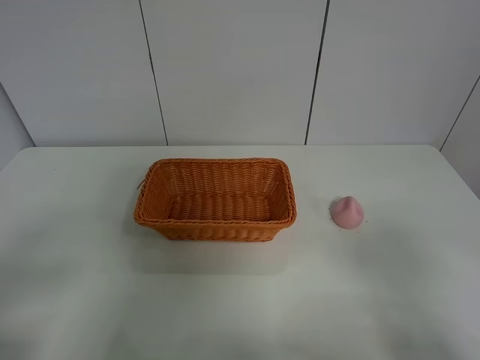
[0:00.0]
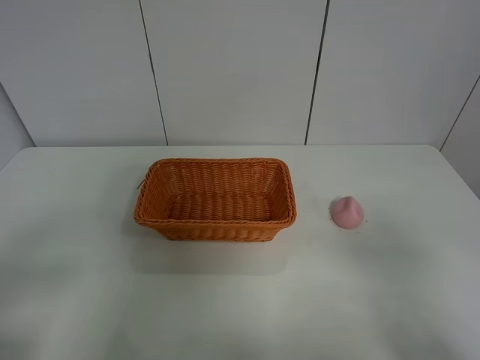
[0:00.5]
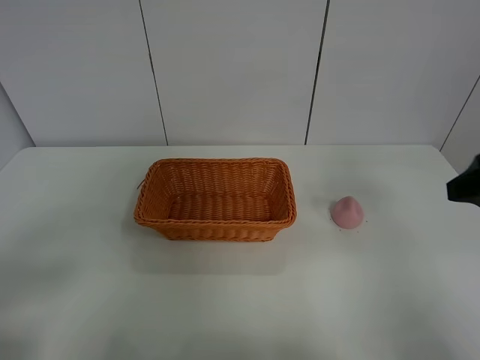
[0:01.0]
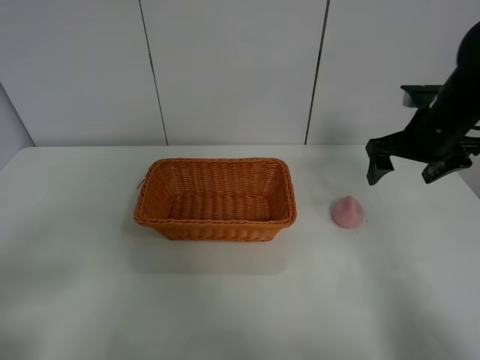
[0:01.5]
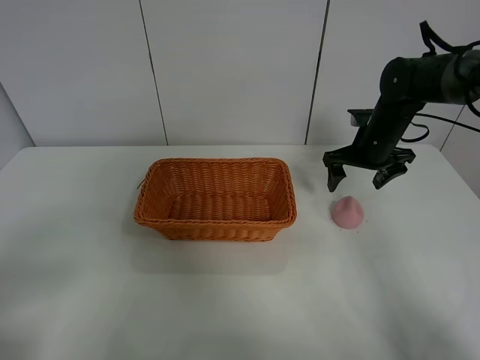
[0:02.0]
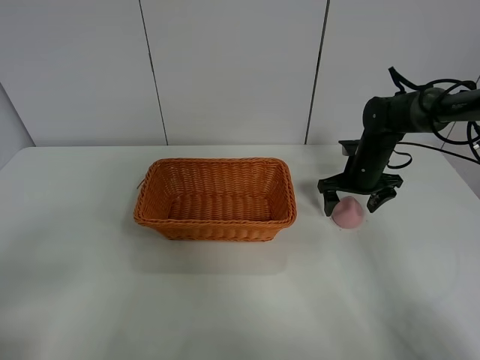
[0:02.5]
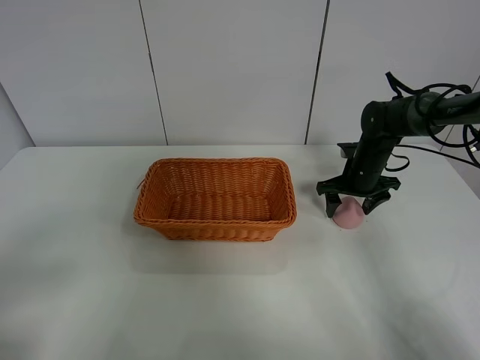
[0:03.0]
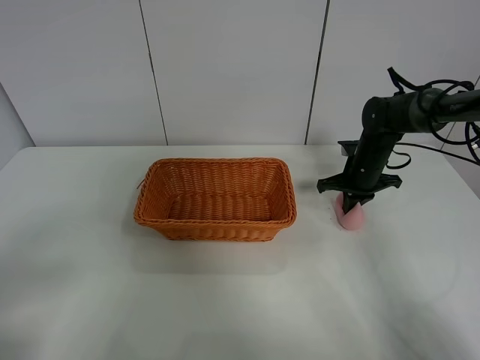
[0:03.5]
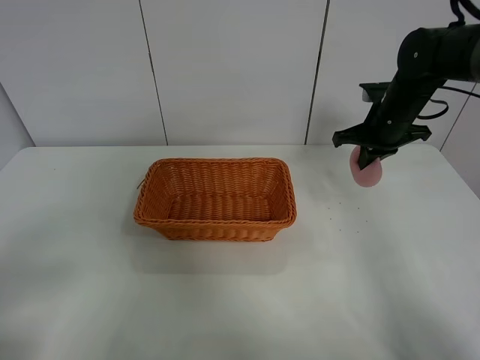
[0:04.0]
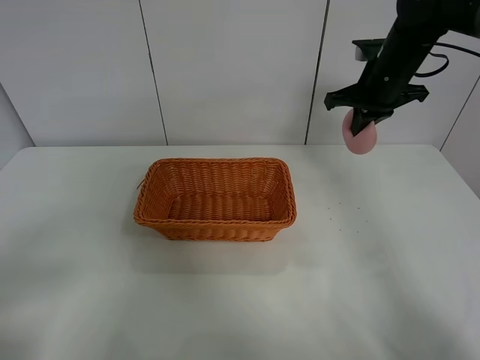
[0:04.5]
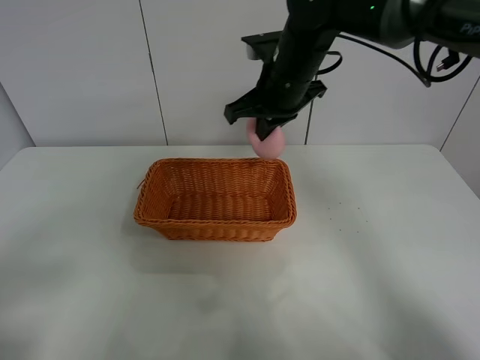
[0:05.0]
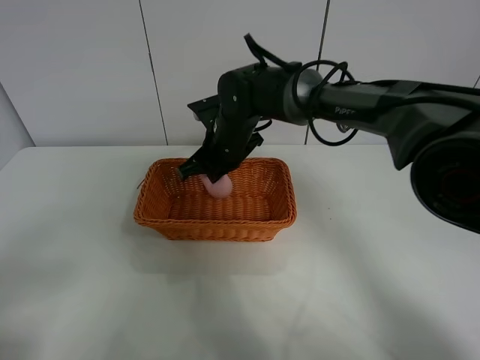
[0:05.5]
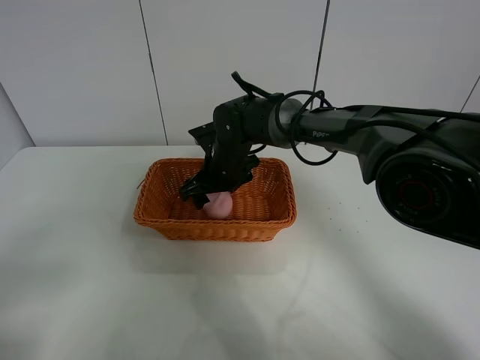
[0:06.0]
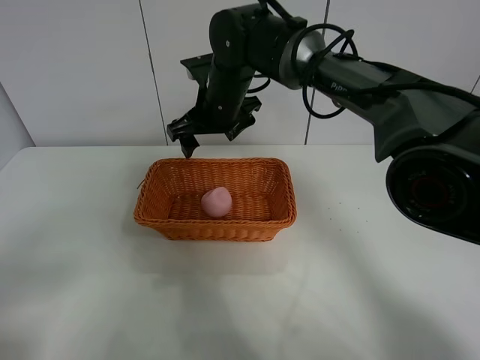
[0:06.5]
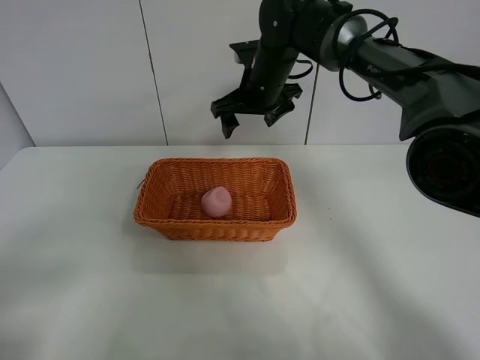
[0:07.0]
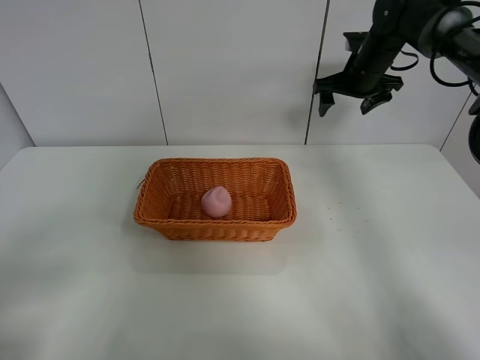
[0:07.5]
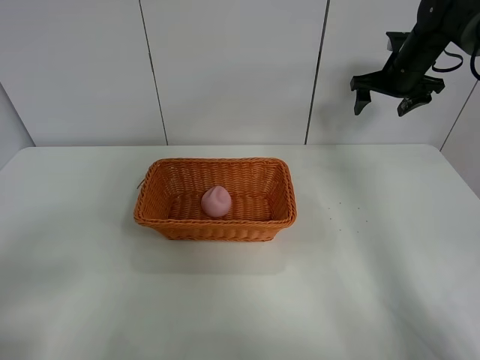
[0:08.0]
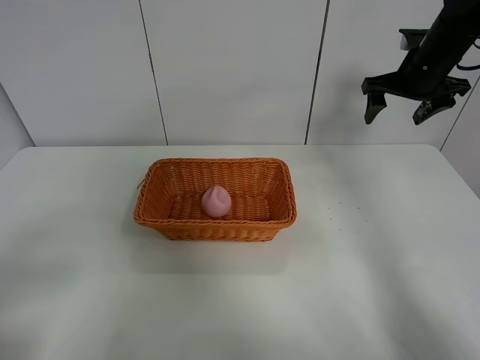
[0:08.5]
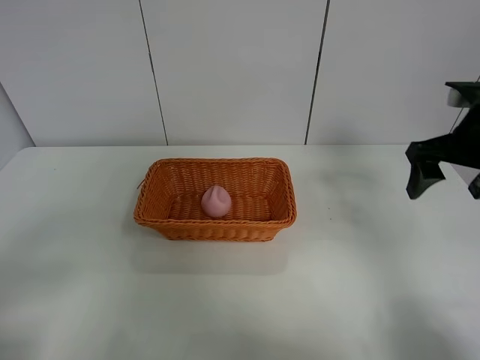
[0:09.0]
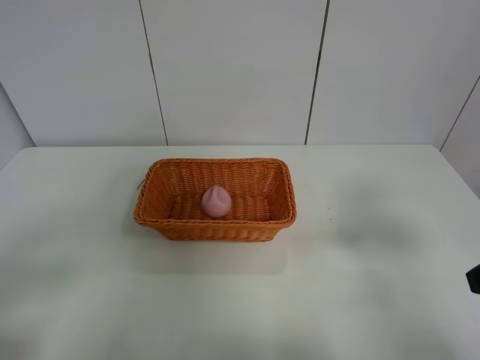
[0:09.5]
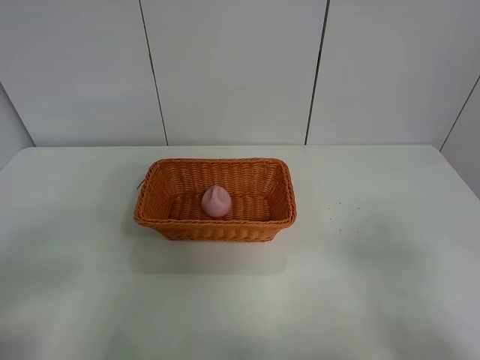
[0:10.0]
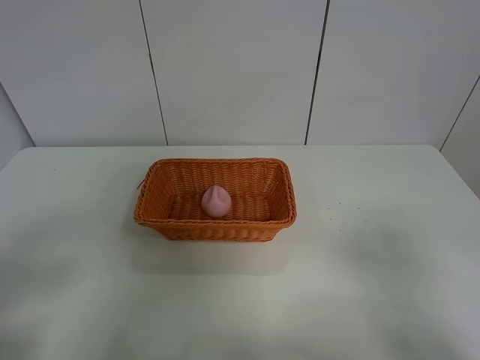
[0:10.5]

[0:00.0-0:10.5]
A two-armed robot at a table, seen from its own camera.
Step, 0:00.0 to 0:03.0: Grasp the peach with right gripper.
Step, 0:03.5 to 0:06.5: Place the peach in the basket with right gripper.
0:00.0 to 0:02.0: The right gripper moves forward, approximately 40 cm.
0:02.0 to 0:04.0: The right gripper goes approximately 5 cm upward, and closes.
0:04.0 to 0:06.5: The right gripper shifts roughly 25 cm to the left, and opens up.
0:06.5 to 0:08.5: The right gripper shifts about 30 cm to the right.
0:08.5 to 0:10.5: The right gripper is displaced backward by about 40 cm.

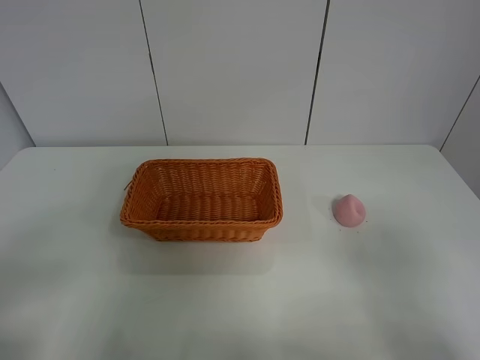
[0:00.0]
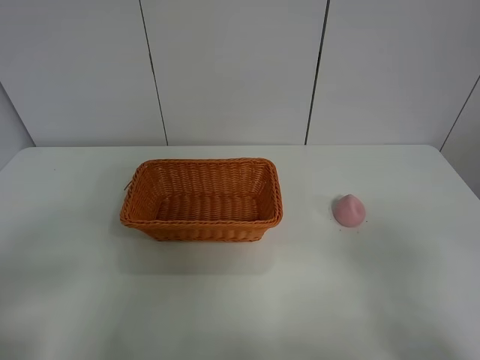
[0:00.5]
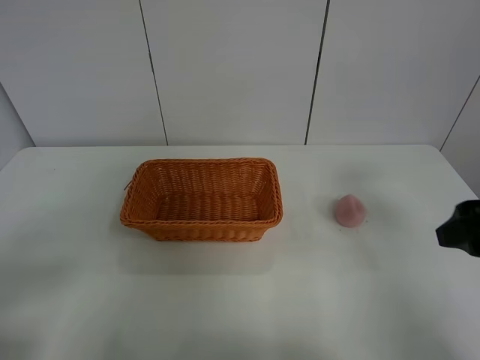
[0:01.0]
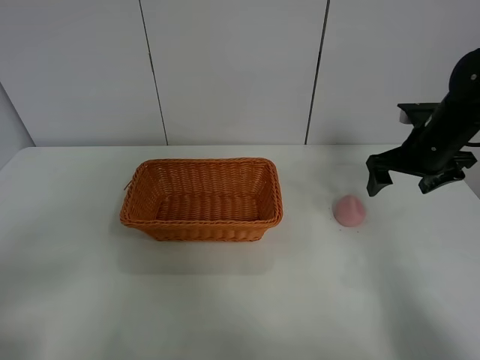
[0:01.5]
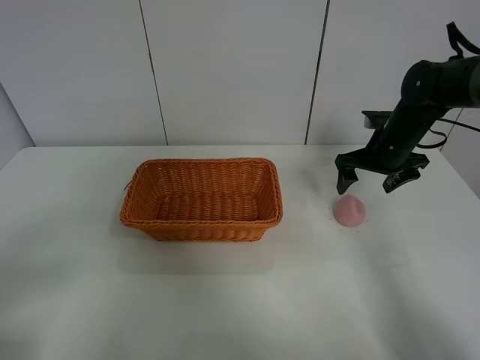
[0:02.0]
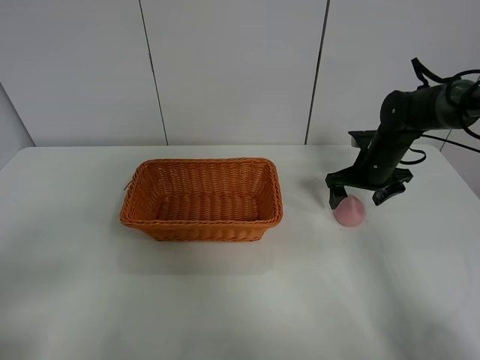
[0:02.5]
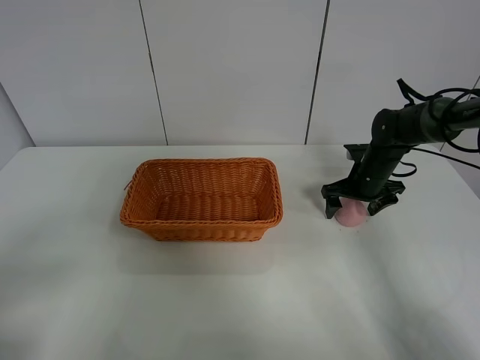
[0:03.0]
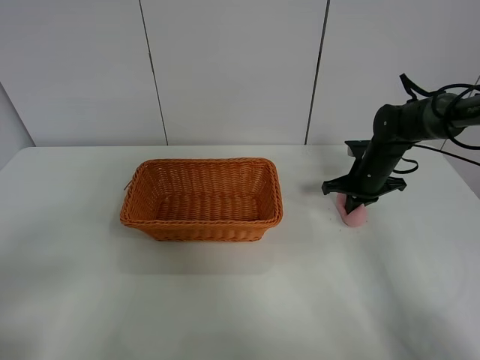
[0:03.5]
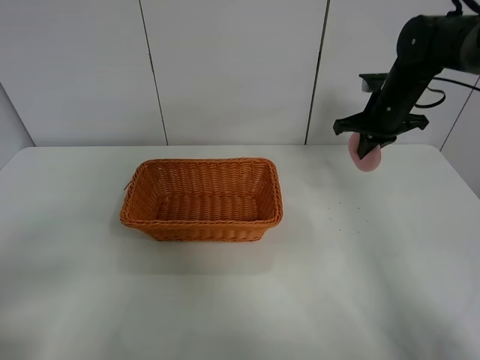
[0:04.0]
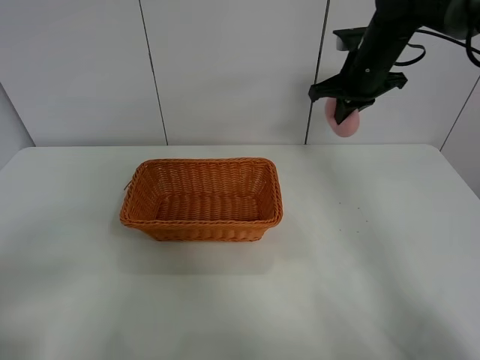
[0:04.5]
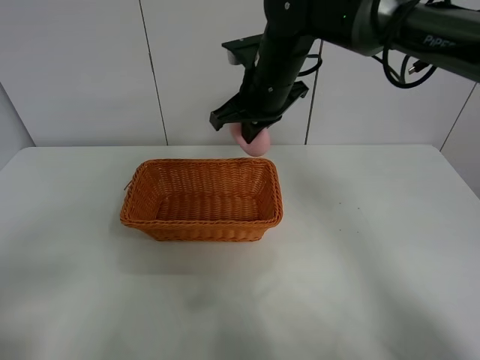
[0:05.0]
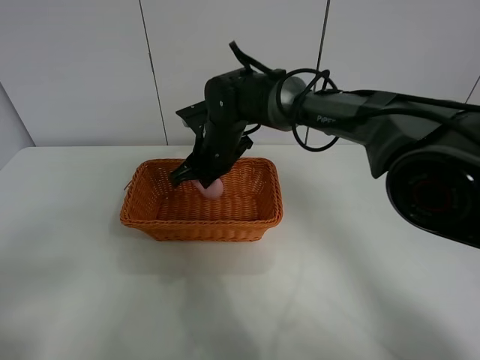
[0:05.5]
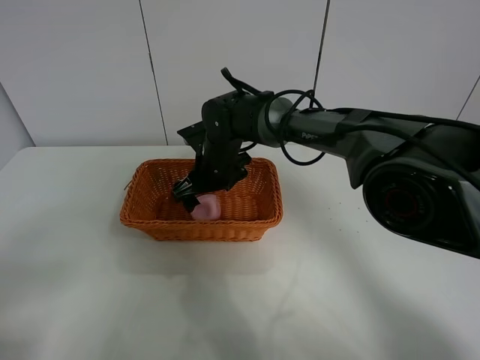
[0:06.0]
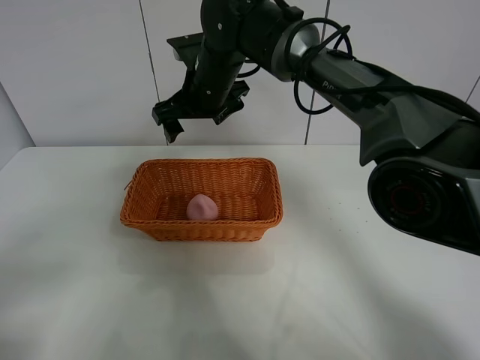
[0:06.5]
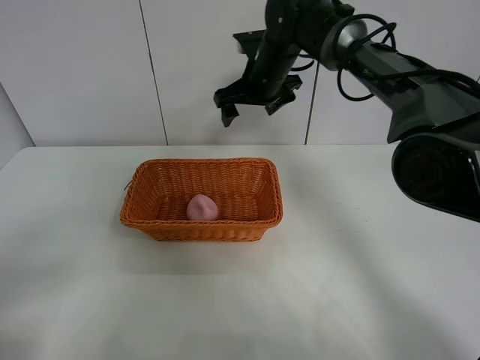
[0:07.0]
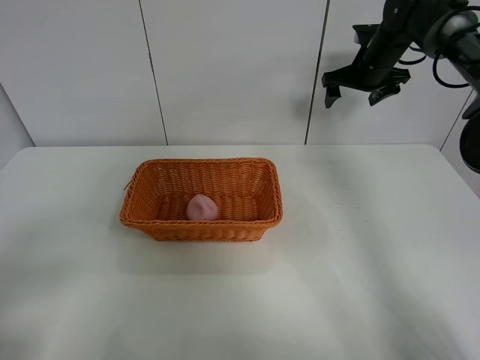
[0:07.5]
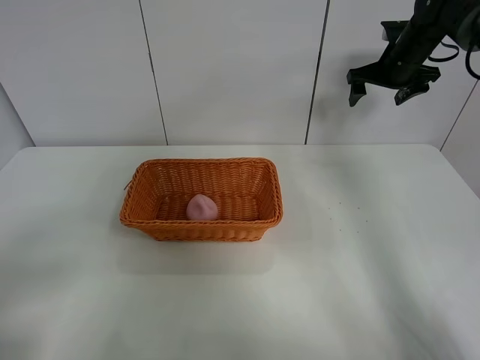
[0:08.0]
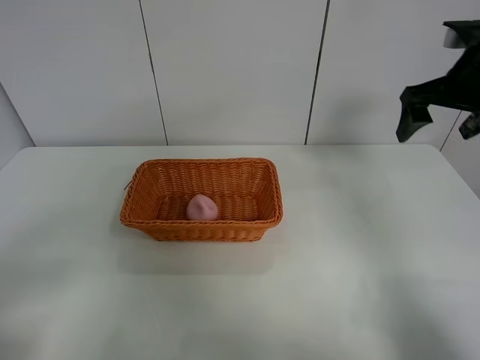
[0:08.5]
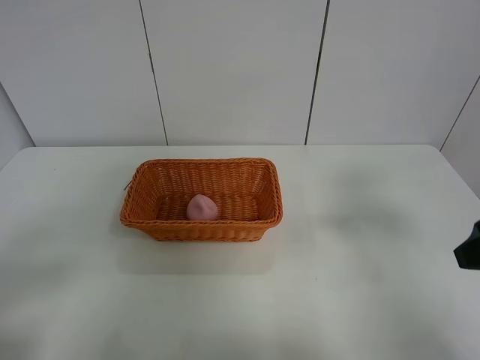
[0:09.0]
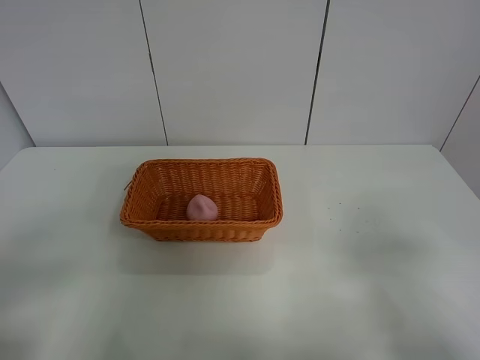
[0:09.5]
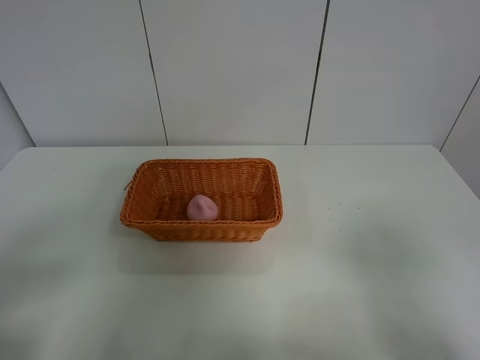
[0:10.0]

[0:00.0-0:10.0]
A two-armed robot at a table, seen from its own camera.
Step, 0:00.0 to 0:03.5: Grasp the peach with right gripper.
Step, 0:04.0 to 0:06.0: Place the peach in the basket with right gripper.
0:00.0 to 0:02.0: The right gripper moves forward, about 40 cm.
0:02.0 to 0:04.0: The right gripper moves upward, roughly 5 cm, and closes its fingers.
0:04.0 to 0:06.0: The right gripper shifts about 30 cm to the left, and opens its fingers.
0:06.0 to 0:08.0: The right gripper heads to the right and upward, covering roughly 35 cm.
0:08.0 to 0:10.0: The right gripper travels backward by approximately 50 cm.

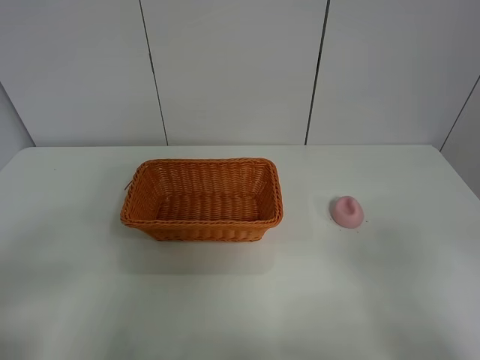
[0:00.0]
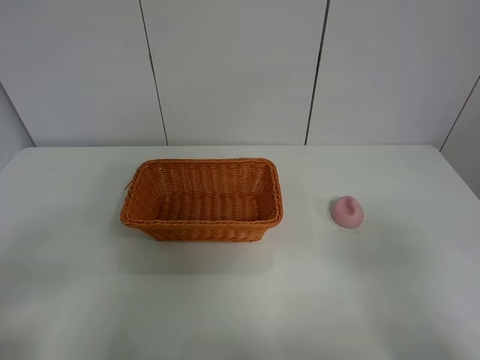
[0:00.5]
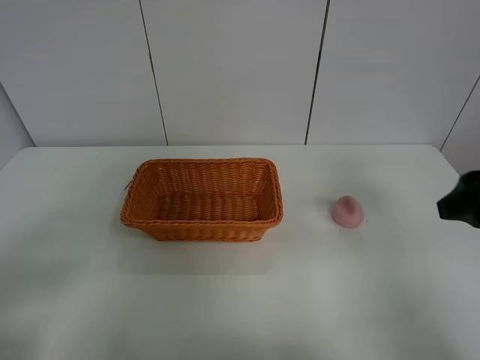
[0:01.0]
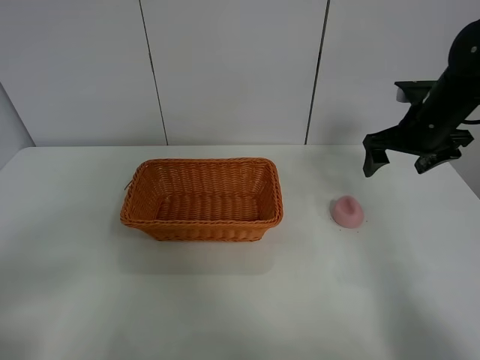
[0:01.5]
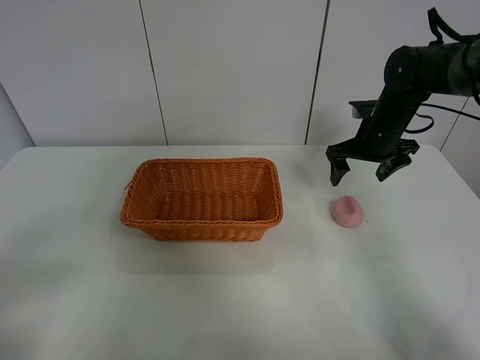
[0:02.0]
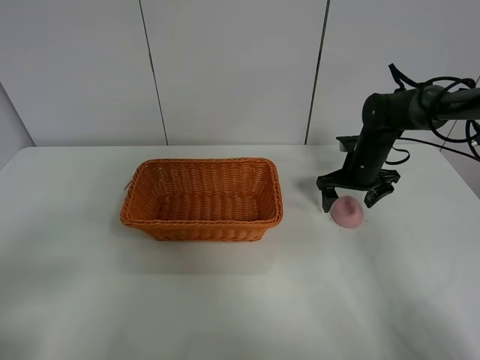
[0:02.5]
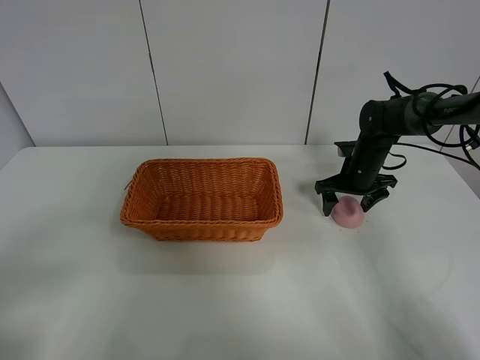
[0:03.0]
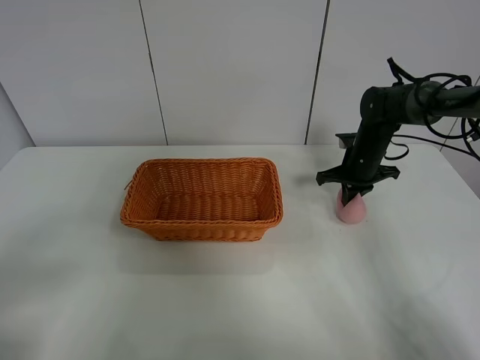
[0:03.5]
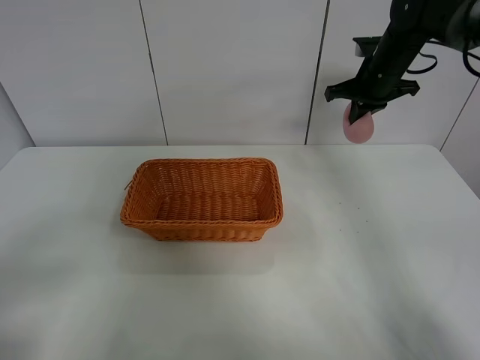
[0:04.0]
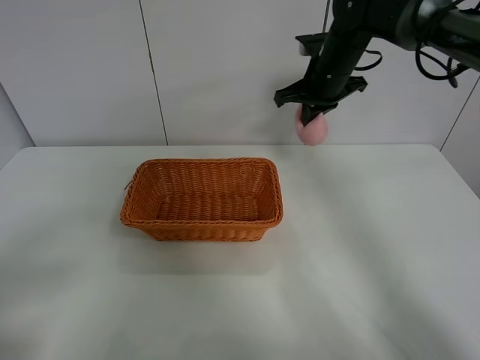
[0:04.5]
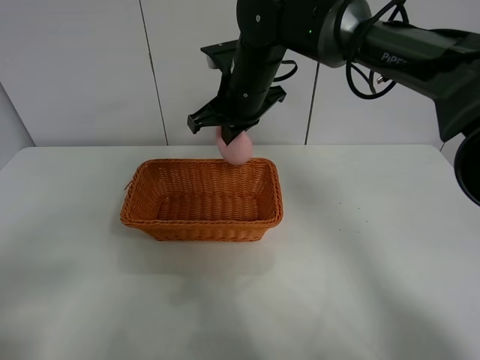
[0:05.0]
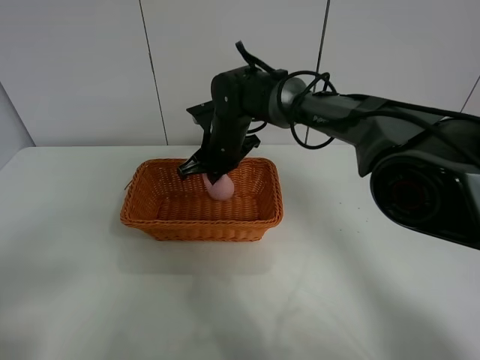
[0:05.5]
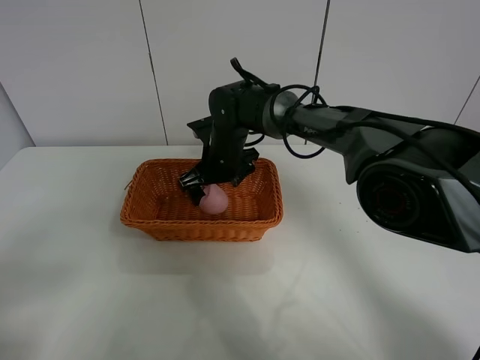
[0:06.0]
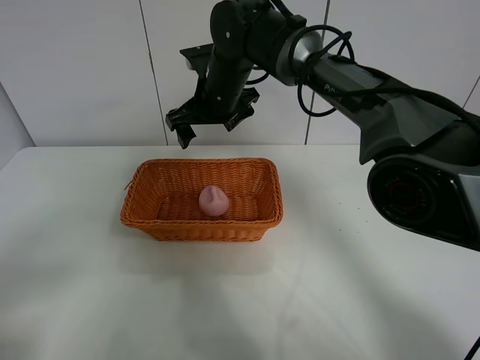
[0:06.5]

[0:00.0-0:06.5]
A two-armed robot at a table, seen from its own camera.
Step, 0:00.0 to 0:03.0: Grasp the peach with right gripper.
Step, 0:03.5 to 0:06.0: Place the peach in the basket with right gripper.
0:02.0 to 0:04.5: The right gripper heads upward and to the left, covering about 10 cm, and closes.
0:04.5 to 0:06.5: The right gripper travels to the left by about 20 cm, and opens its fingers.
